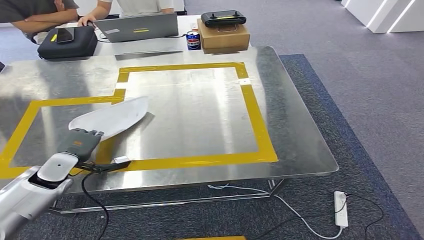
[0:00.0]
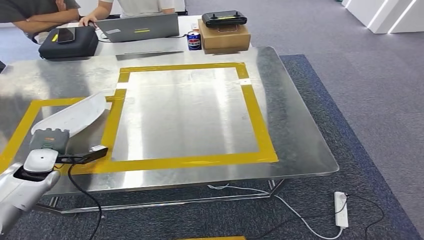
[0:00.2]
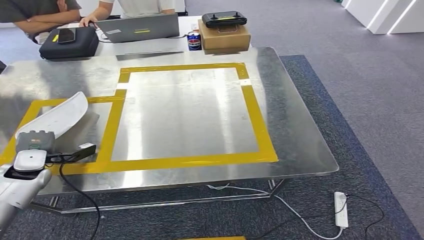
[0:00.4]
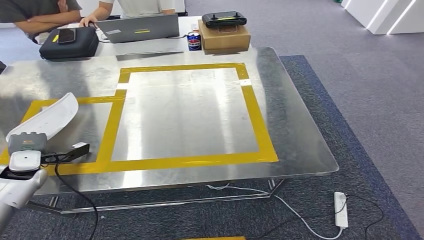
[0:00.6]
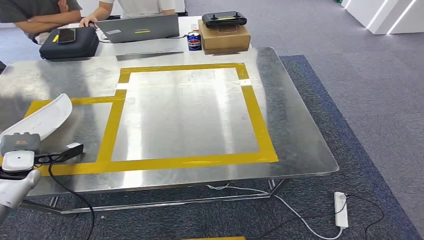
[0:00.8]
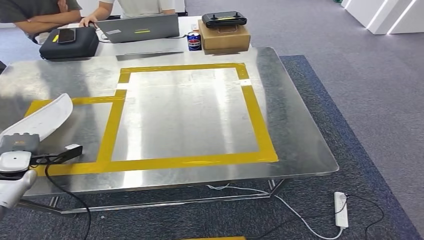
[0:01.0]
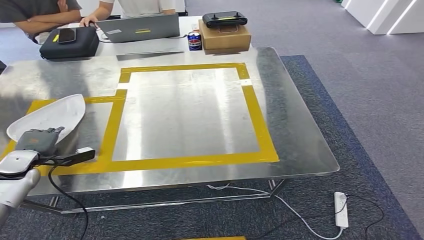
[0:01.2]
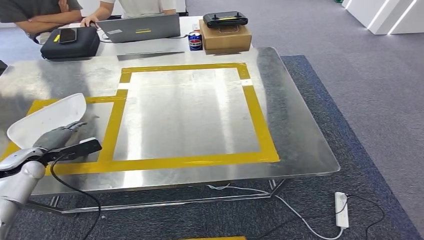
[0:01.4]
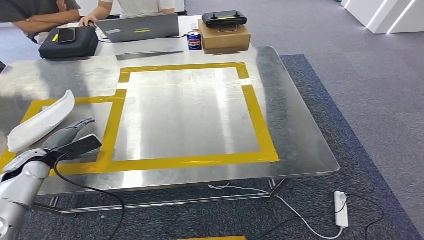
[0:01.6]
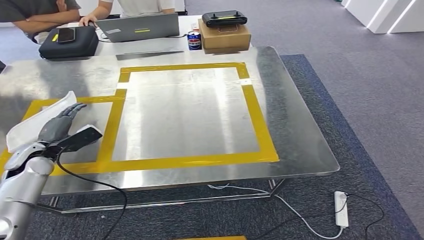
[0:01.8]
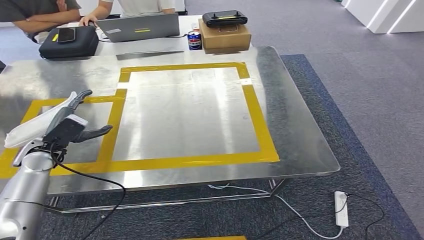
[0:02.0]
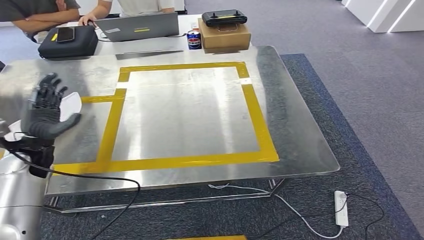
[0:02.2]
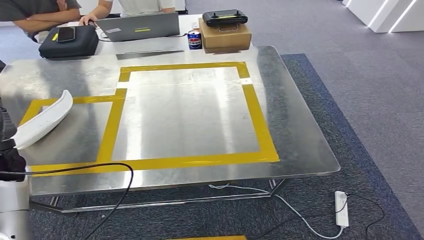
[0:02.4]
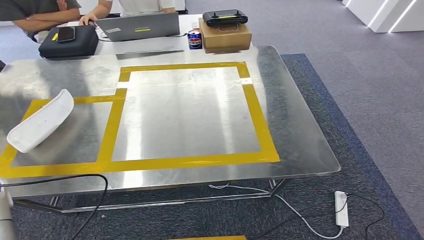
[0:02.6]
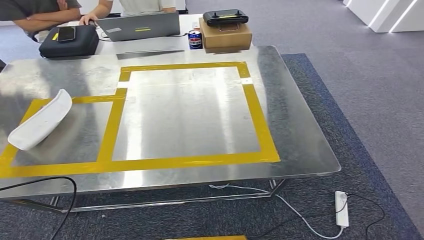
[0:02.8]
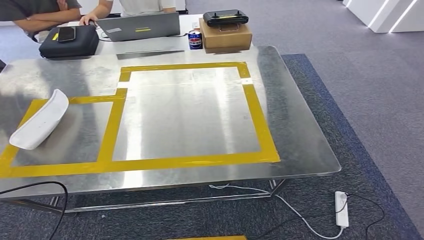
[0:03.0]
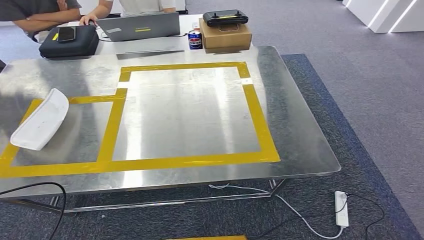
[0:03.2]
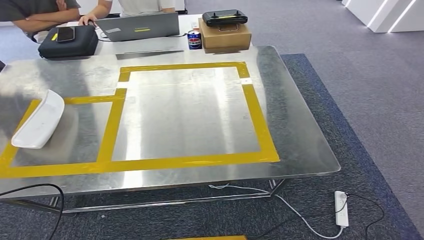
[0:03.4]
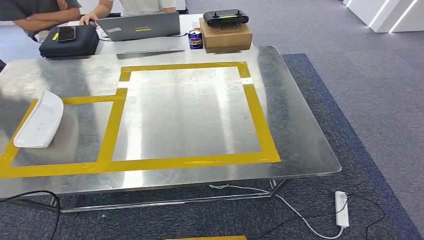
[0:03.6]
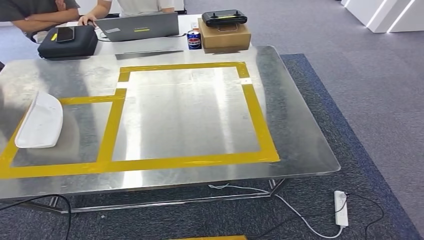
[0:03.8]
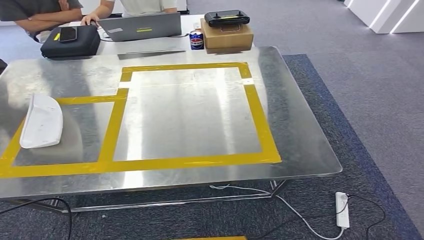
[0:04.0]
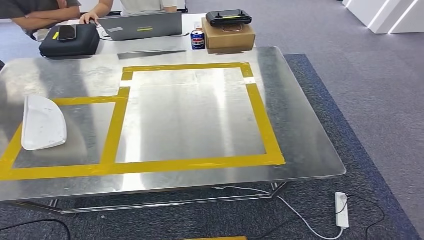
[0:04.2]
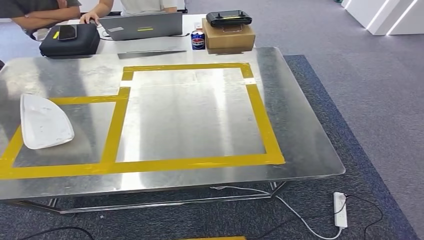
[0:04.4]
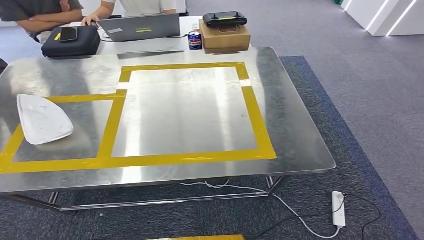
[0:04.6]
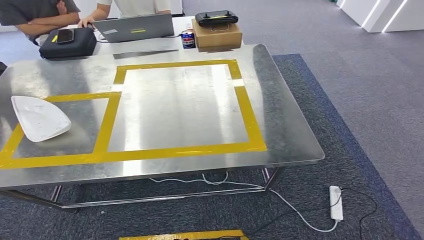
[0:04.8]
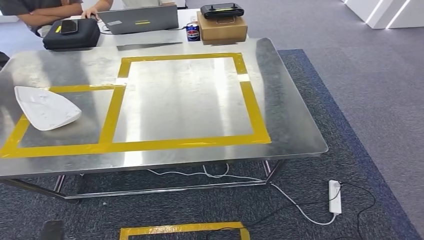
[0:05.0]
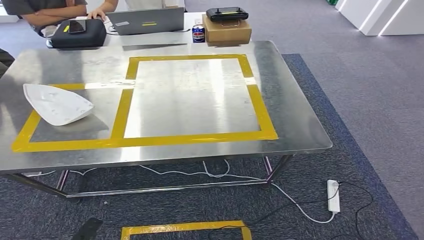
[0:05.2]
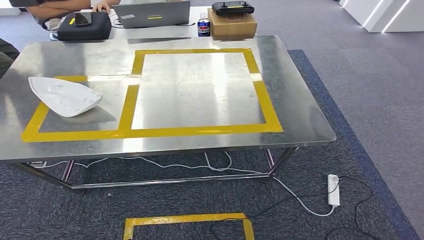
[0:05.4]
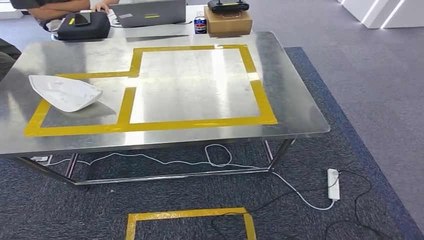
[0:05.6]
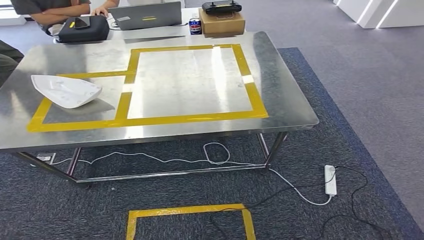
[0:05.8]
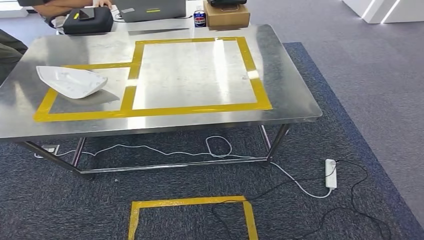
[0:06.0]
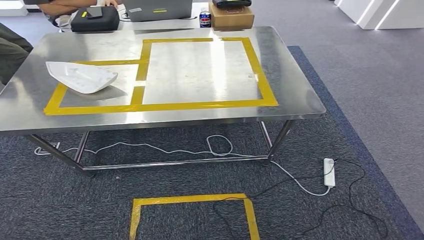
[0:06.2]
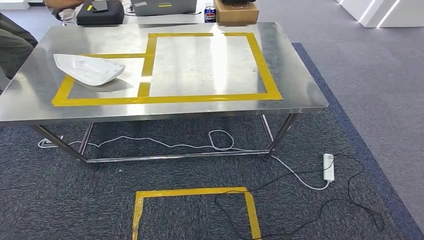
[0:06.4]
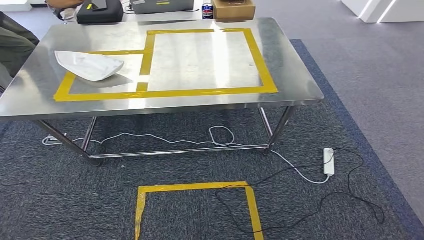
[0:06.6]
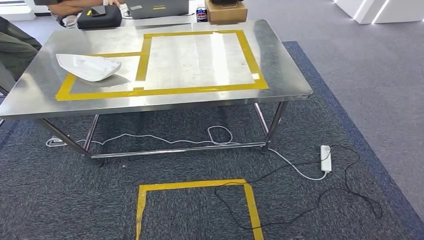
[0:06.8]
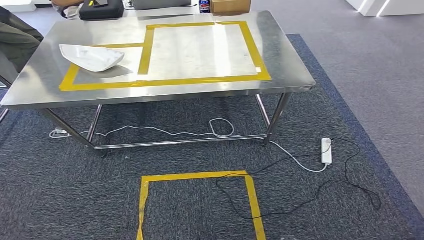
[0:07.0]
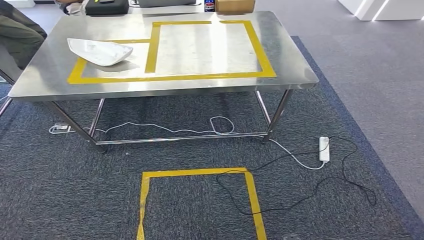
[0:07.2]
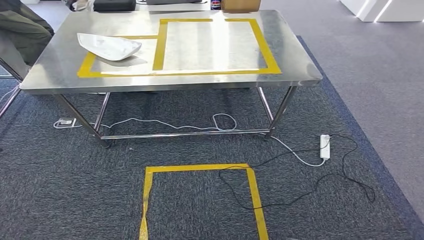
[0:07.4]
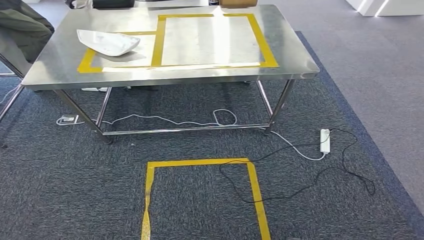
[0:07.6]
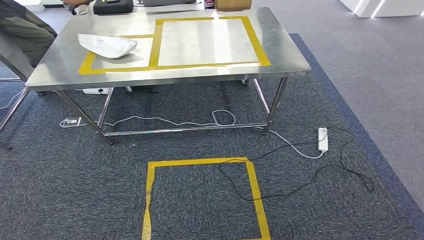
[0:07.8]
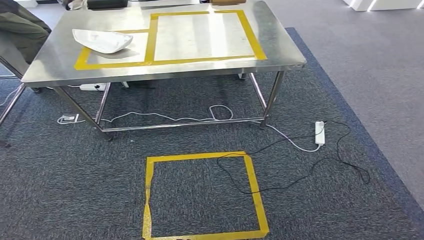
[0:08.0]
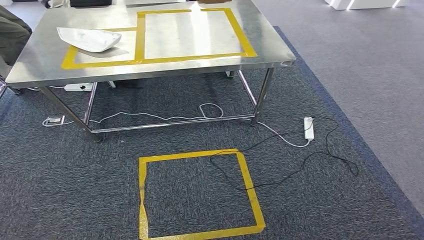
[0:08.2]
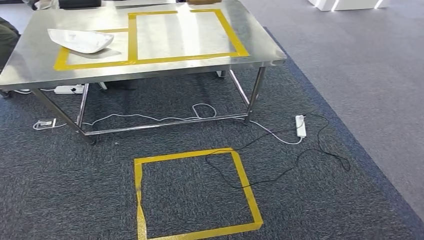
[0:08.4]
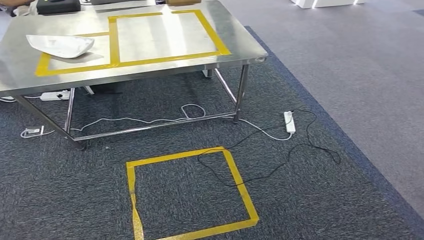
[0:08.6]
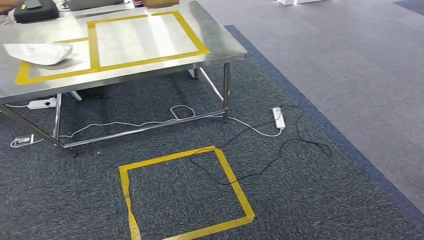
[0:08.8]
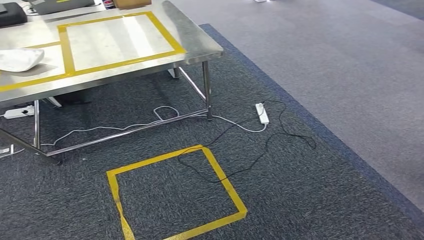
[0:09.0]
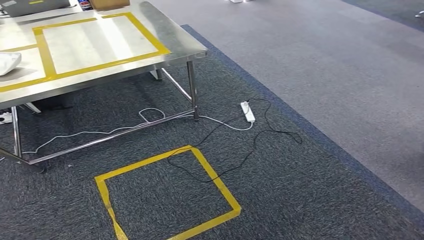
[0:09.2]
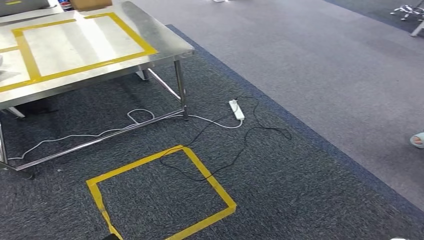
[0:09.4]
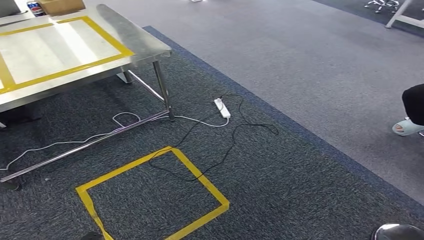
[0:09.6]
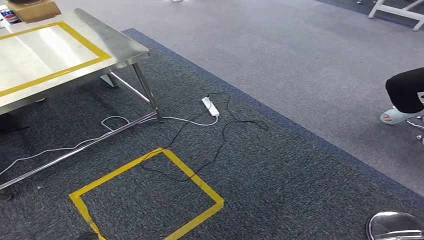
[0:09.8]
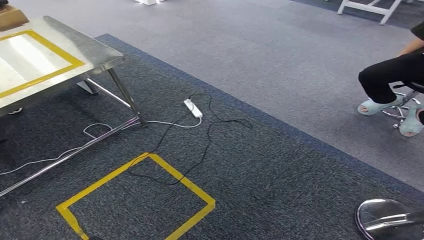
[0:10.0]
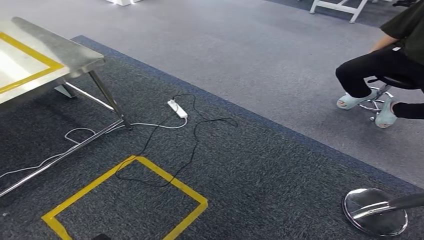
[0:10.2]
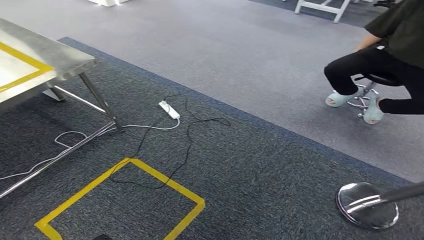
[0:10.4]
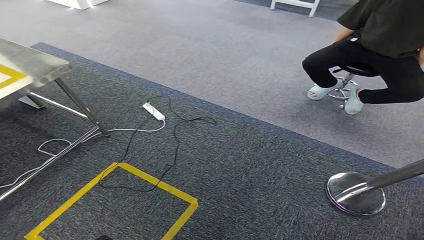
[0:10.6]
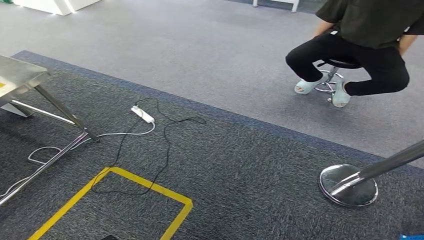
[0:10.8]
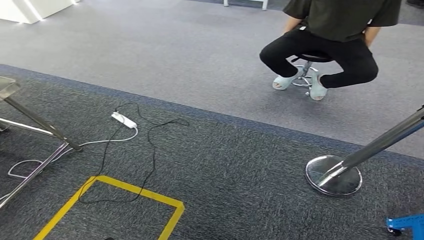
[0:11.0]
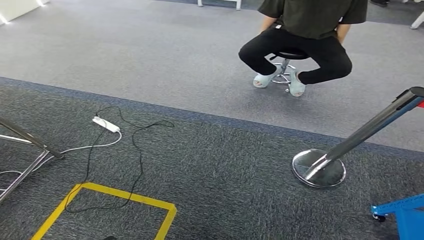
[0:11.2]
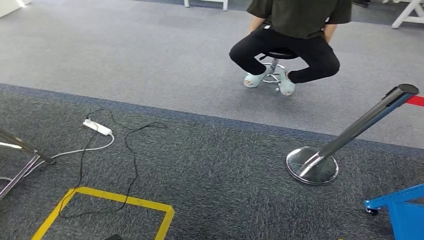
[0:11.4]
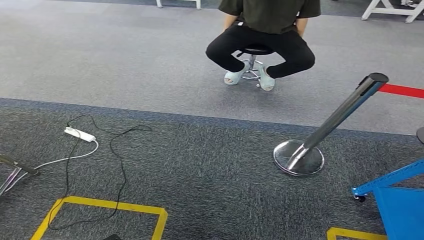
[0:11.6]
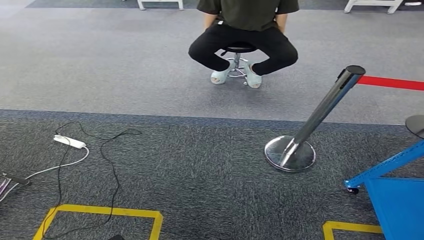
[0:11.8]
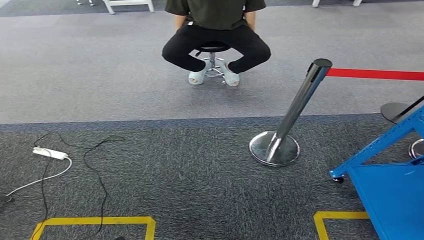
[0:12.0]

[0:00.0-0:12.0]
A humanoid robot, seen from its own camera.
Step, 0:00.0 to 0:03.6: Insert the small parts into the corresponding holes on the workbench.
0:00.0 to 0:01.6: The left hand moves to the left, some 5 cm.
0:01.6 to 0:03.0: The left hand heads backward, to the left and upward, covering some 20 cm.
0:03.0 to 0:04.4: The left hand moves downward, backward and to the right, about 20 cm.

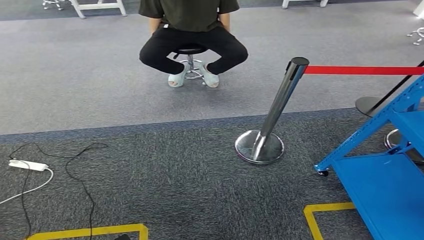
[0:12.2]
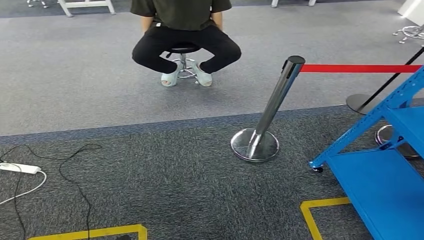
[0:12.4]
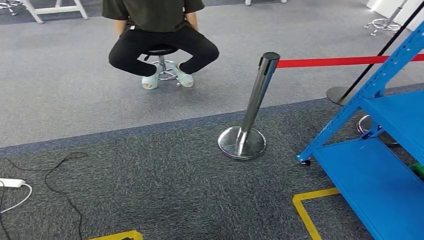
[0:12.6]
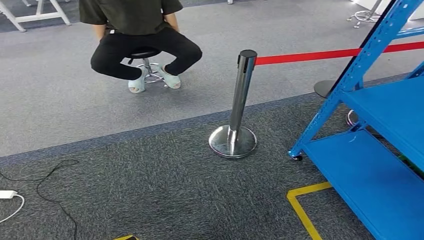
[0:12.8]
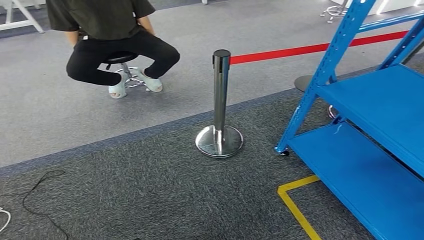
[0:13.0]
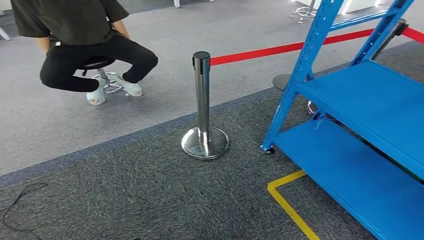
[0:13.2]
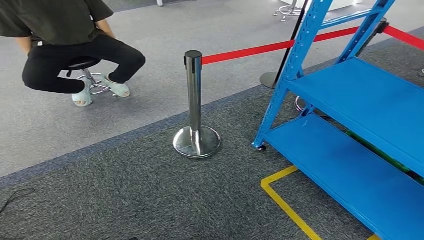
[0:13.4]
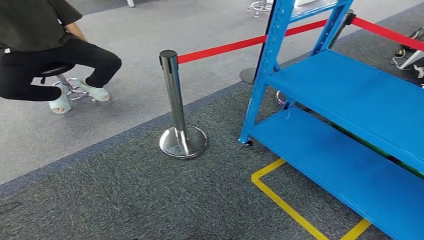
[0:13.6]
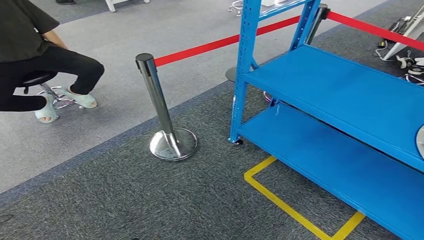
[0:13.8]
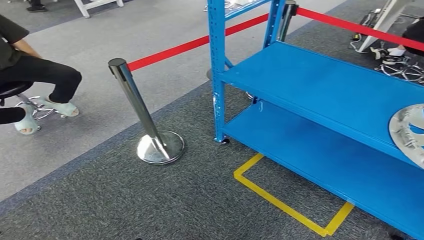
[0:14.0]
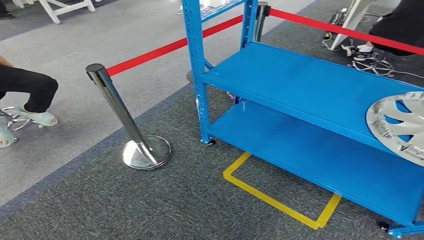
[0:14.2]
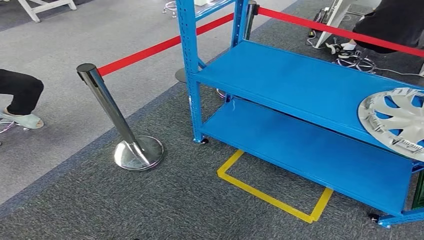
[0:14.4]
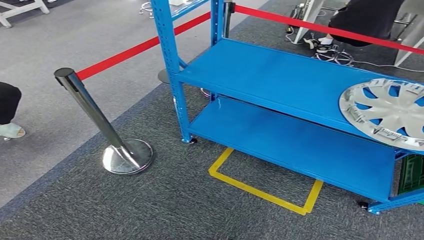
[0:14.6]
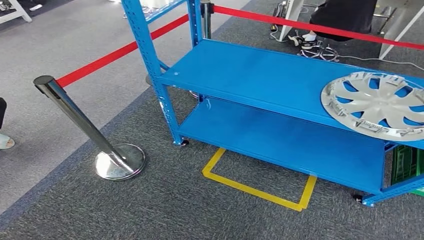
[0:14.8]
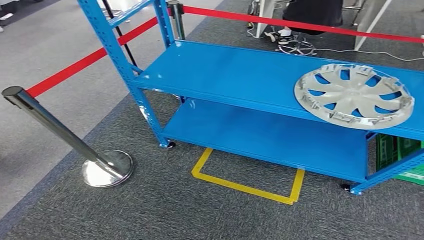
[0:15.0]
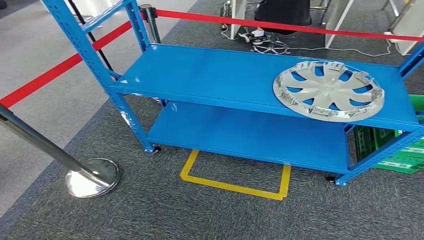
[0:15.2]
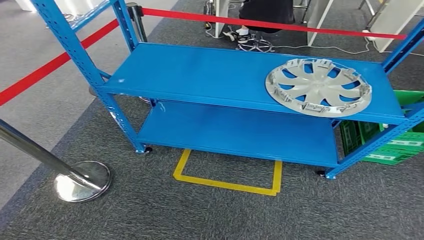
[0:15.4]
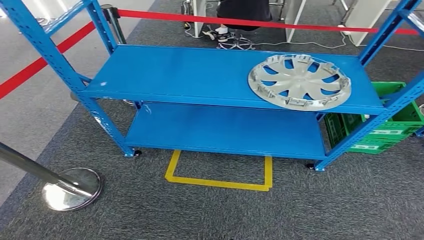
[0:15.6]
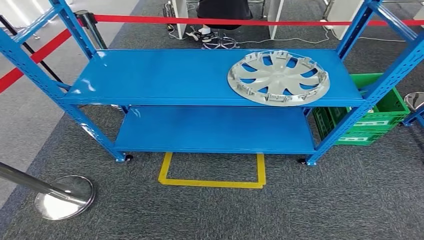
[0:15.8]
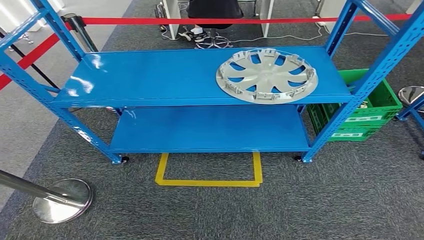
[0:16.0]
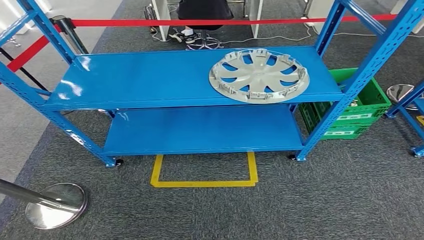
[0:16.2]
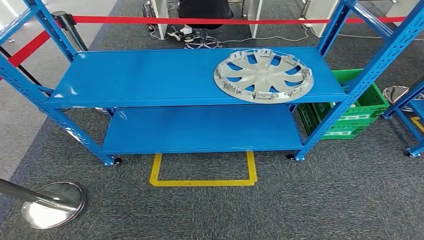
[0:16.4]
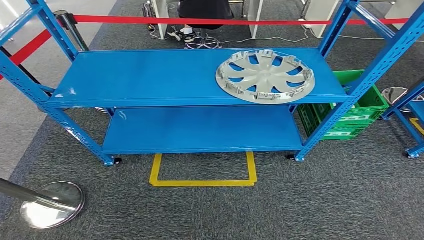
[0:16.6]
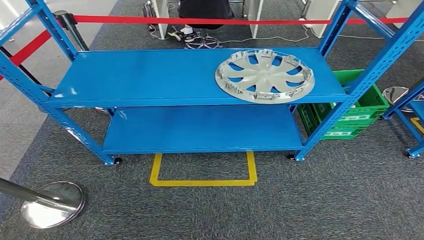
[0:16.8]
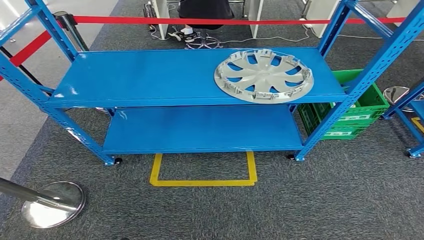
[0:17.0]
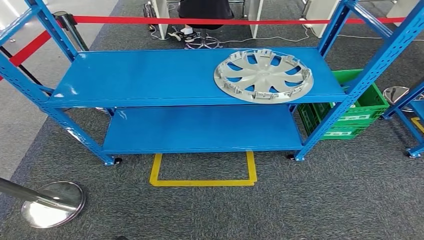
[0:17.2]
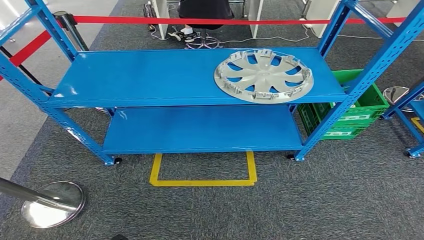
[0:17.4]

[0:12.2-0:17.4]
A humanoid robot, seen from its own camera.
Step, 0:12.2 to 0:17.4: Move to the initial position at the workbench.
